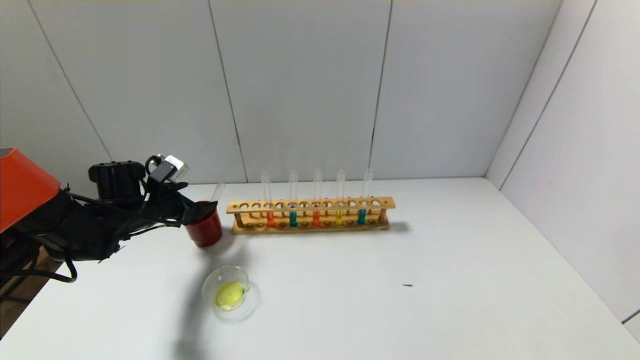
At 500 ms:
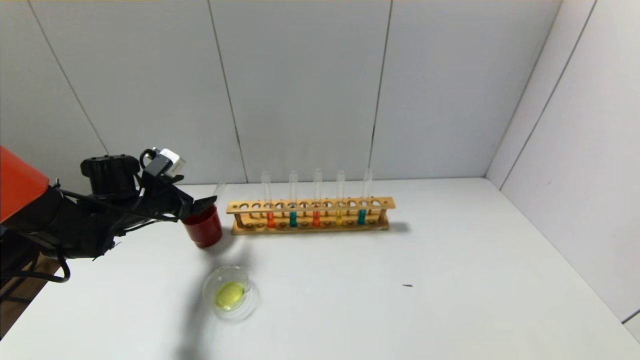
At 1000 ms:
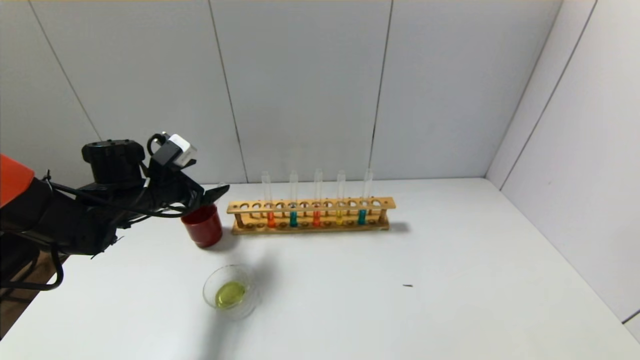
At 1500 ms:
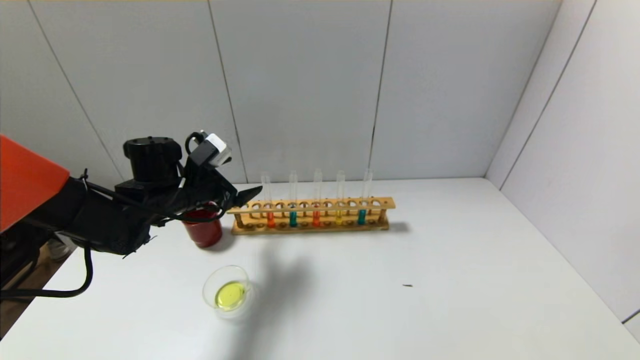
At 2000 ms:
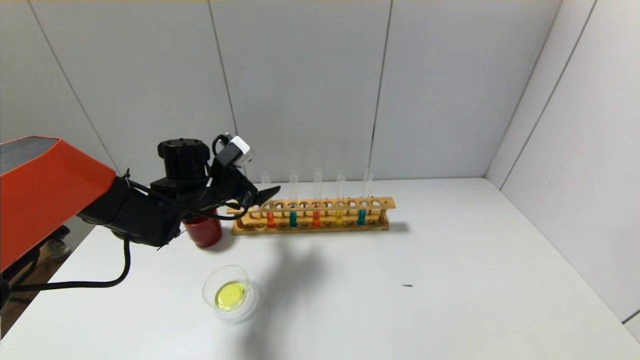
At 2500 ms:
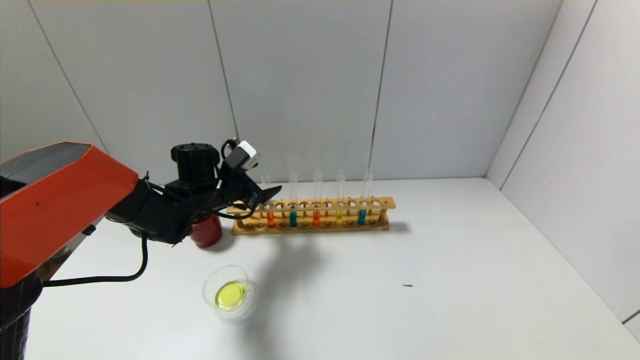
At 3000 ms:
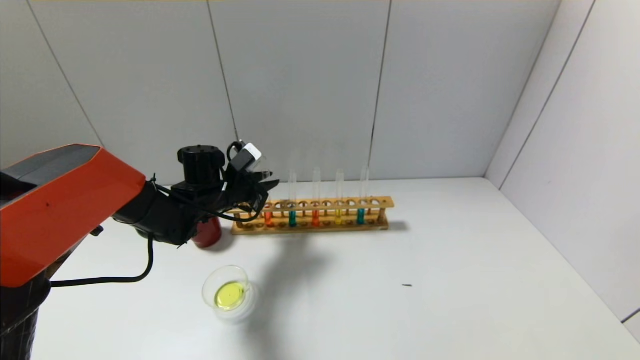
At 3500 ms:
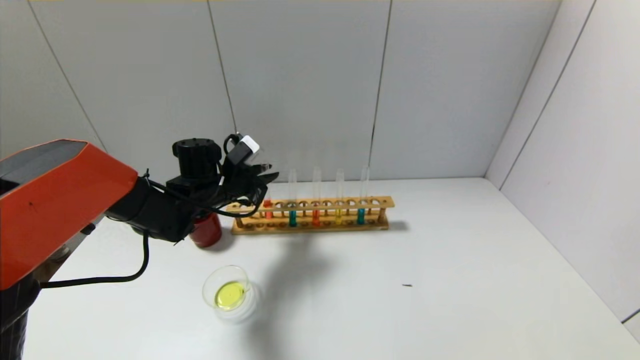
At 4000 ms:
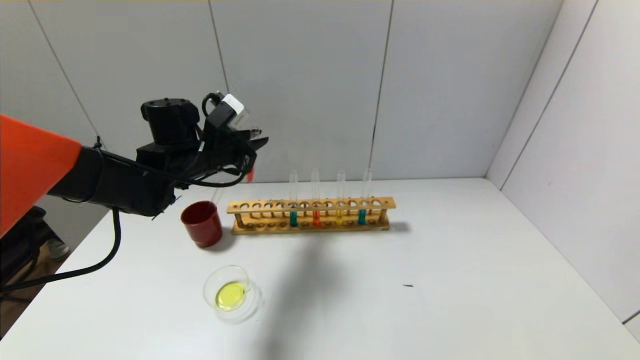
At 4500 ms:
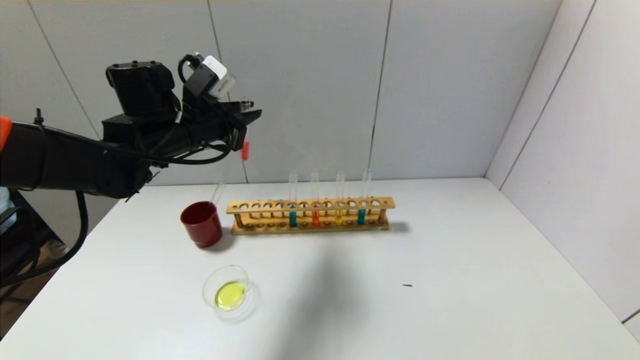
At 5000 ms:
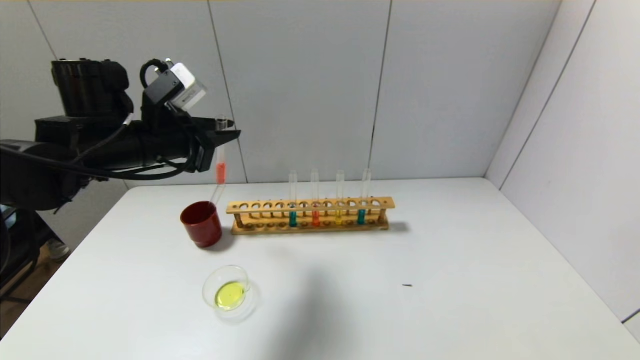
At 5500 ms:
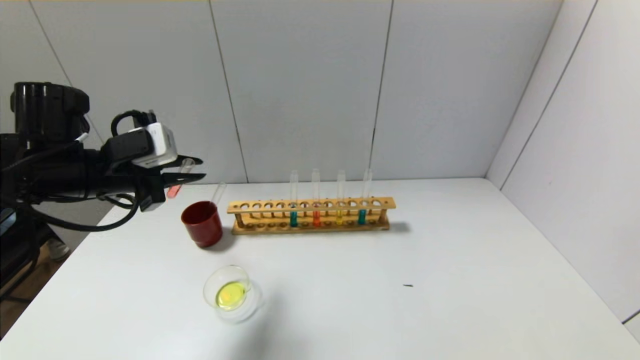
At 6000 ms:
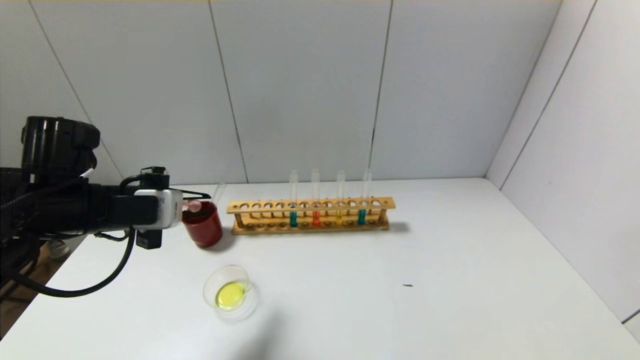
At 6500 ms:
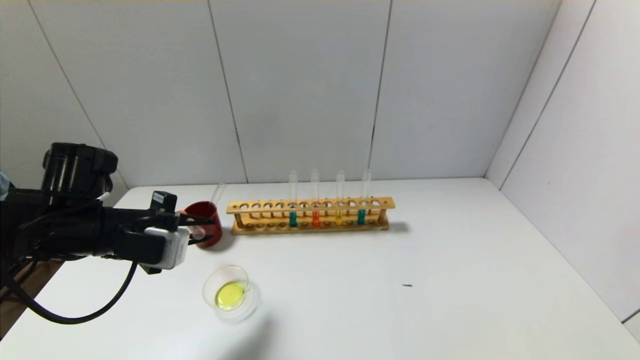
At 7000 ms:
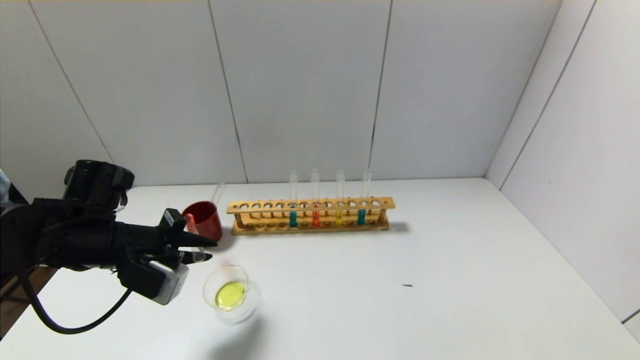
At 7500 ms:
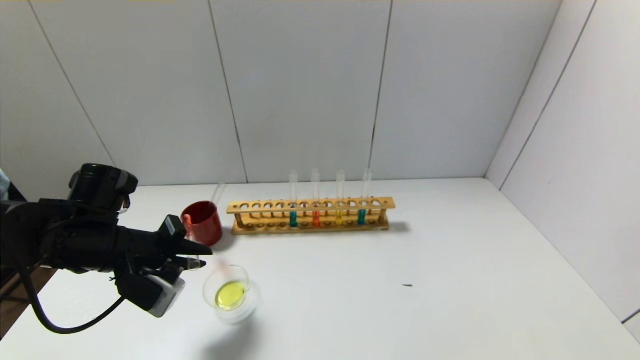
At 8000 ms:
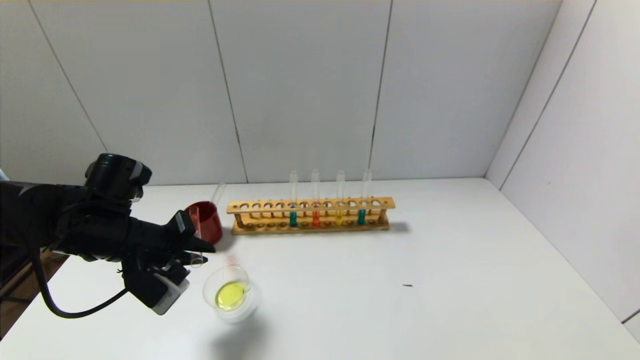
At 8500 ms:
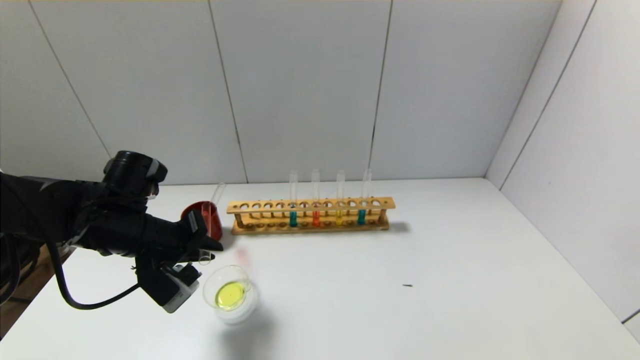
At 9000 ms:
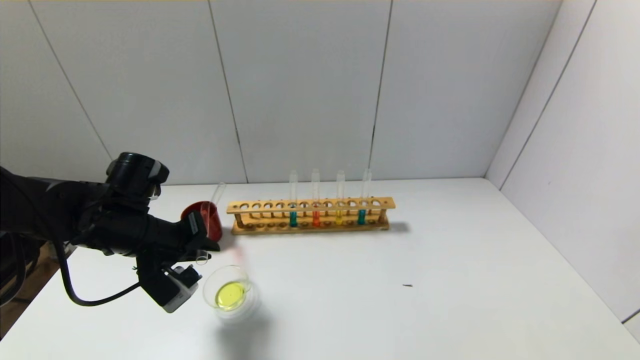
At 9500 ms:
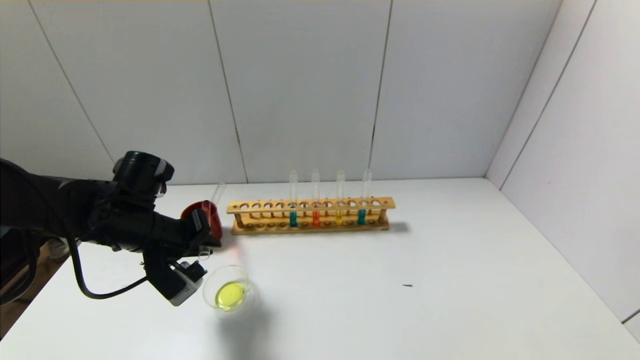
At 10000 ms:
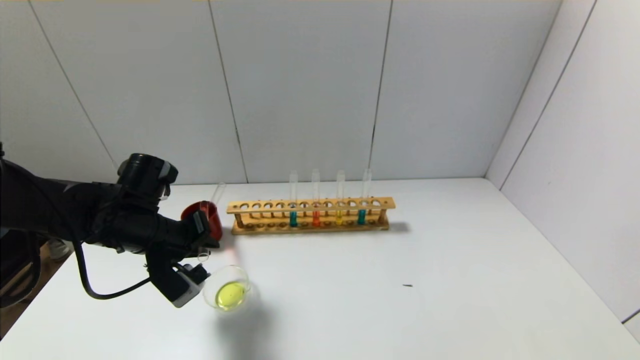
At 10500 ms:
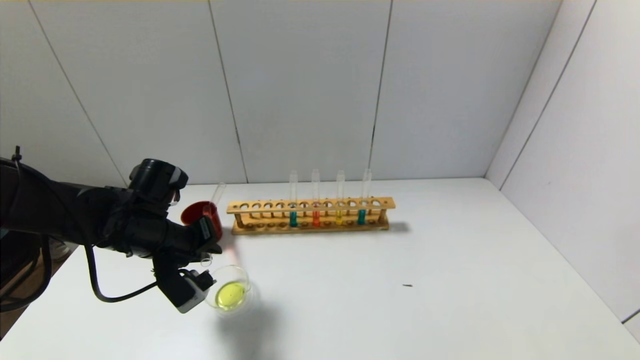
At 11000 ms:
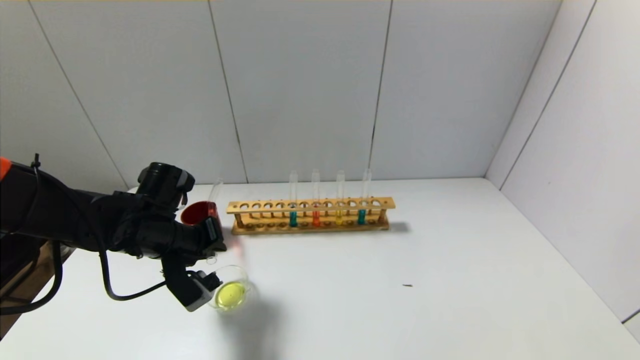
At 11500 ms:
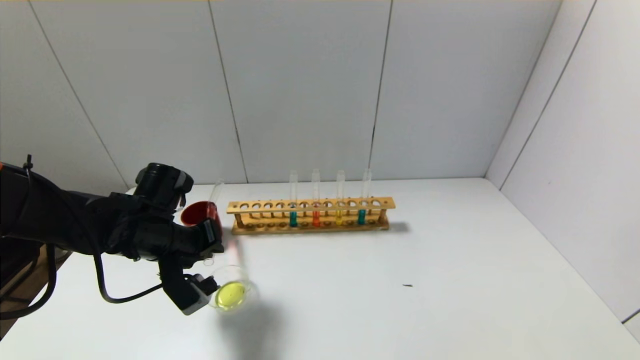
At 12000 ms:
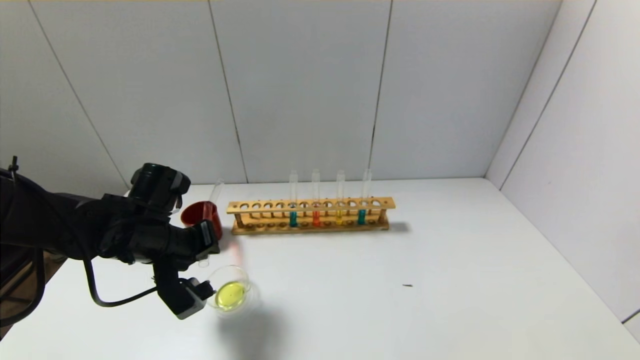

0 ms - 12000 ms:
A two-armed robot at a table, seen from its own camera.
Step, 0 ms - 3000 ms: Grasp the red reagent with the left gripper.
0 ms - 2000 ms: The left gripper goes about 10 cm to the right.
2000 ms - 4000 ms: The left gripper moves upward, roughly 5 cm, and closes its fingers.
4000 ms - 6000 ms: The left gripper moves backward and to the left, about 15 cm.
6000 ms - 8000 ms: The left gripper moves downward, roughly 5 cm.
8000 ms - 10000 ms: There are only small adjustments of the grippers.
10000 ms - 12000 ms: There are only small adjustments of the grippers.

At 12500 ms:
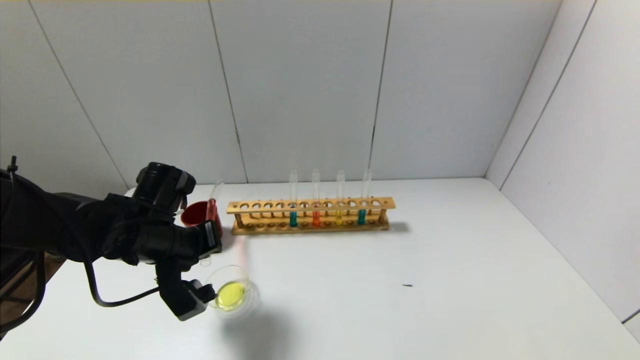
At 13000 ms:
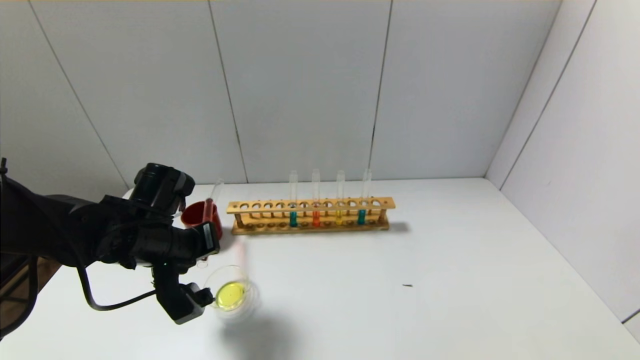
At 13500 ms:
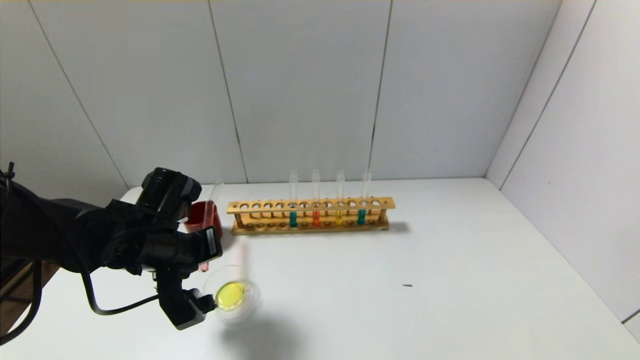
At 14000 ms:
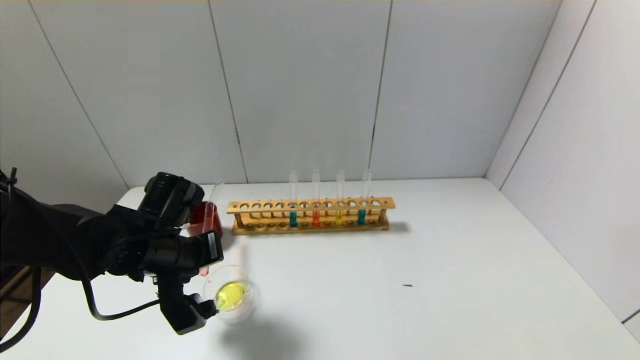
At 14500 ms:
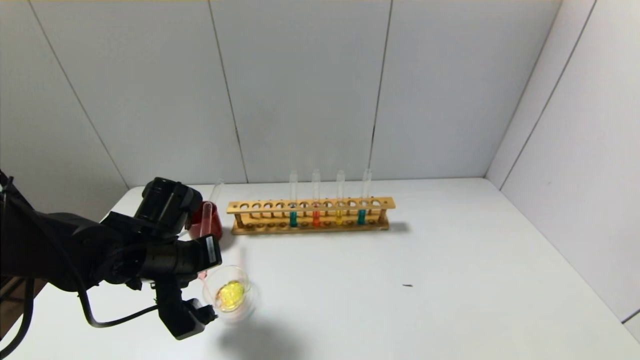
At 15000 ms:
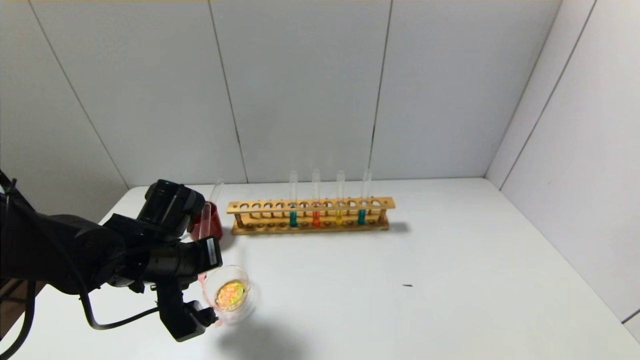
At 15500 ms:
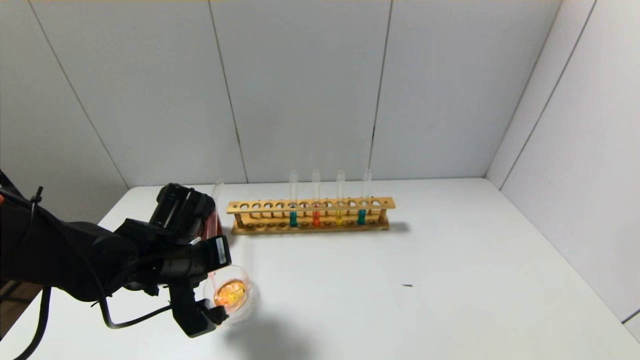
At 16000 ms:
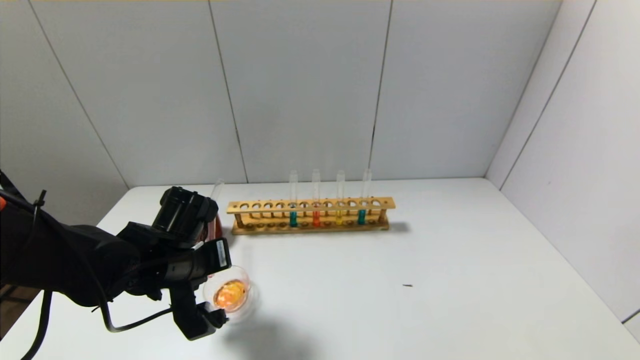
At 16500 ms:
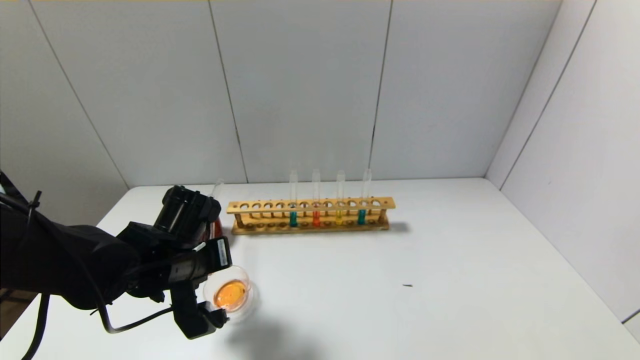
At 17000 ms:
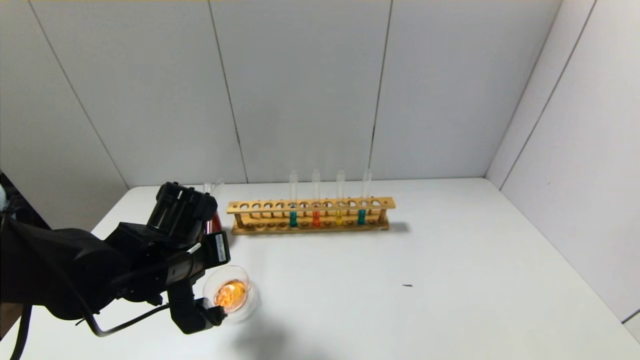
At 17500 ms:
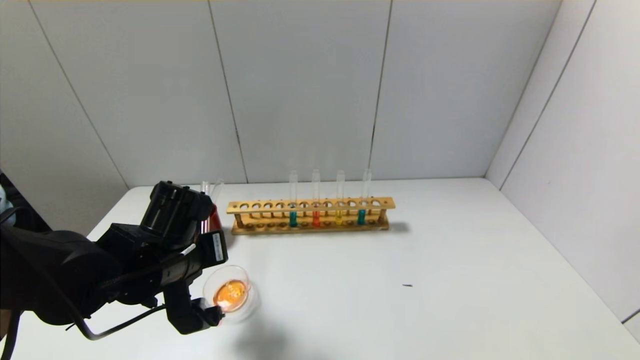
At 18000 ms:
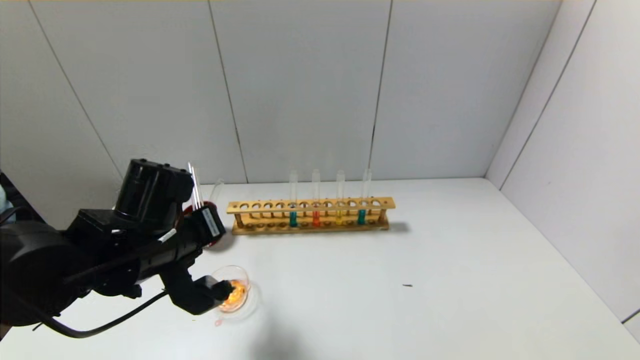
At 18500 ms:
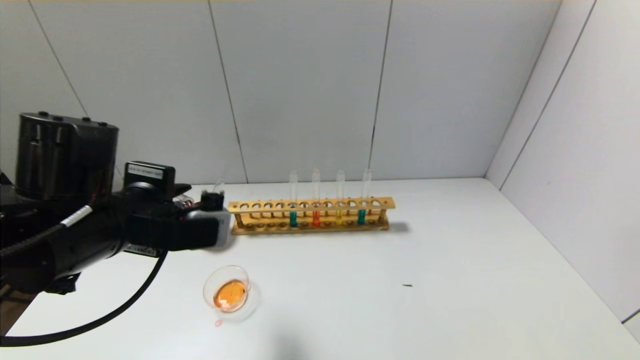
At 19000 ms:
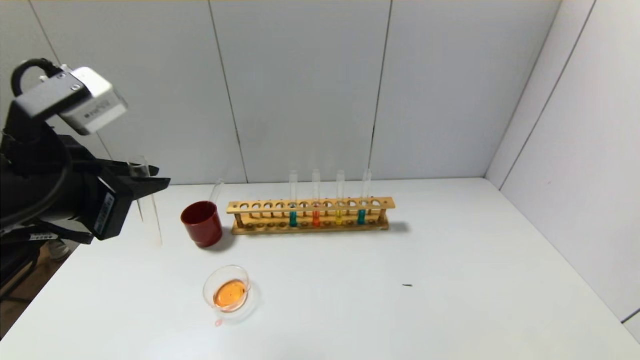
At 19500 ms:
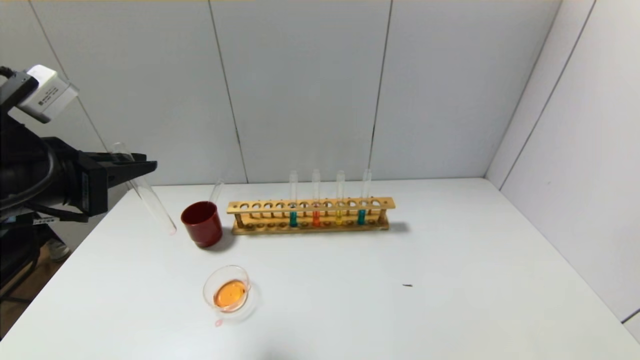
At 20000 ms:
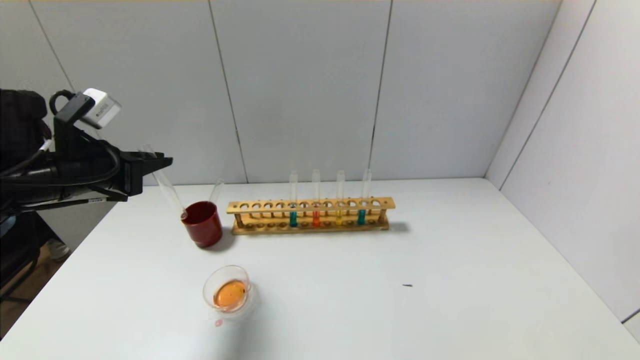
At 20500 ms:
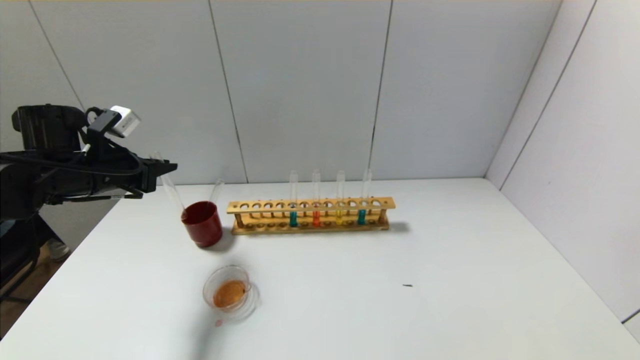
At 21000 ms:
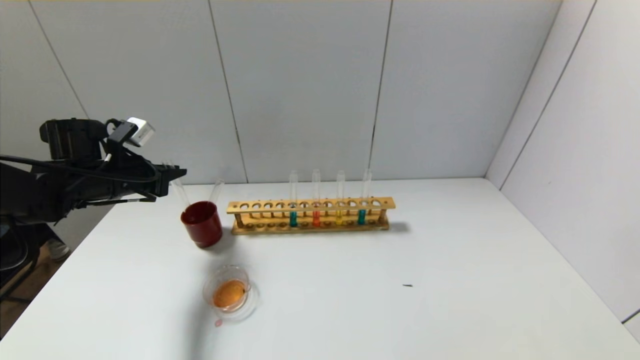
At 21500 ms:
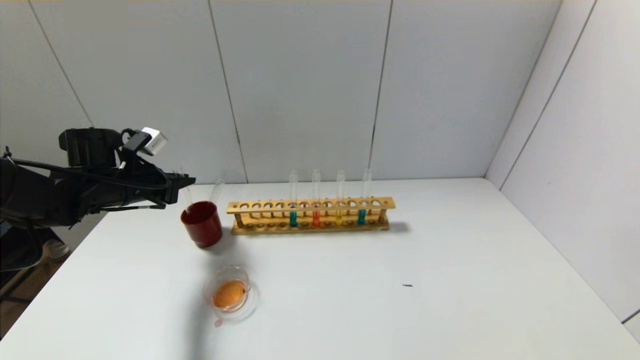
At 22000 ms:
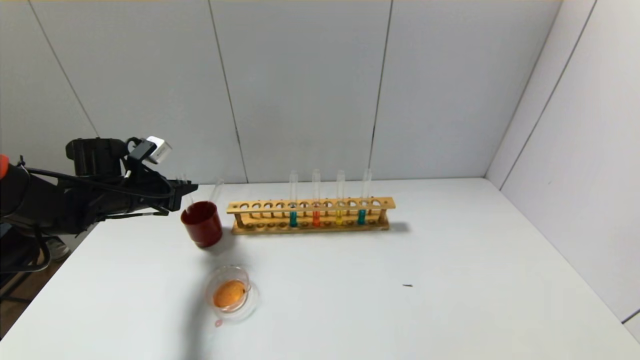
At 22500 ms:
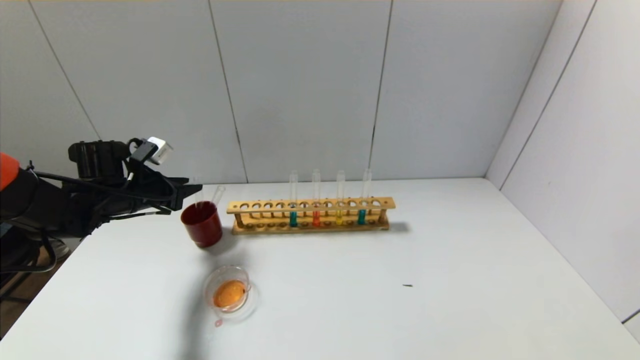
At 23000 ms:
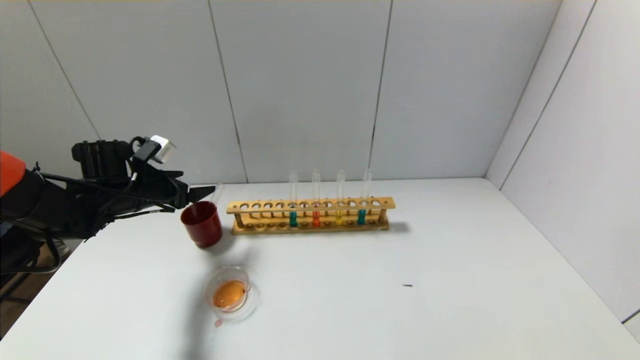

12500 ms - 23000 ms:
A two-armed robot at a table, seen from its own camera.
Step, 12500 ms - 18000 ms: Pour the red reagent into the graduated cylinder with the left gripper.
Step, 18500 ms - 22500 ms: Place the test tube into the brown cup with the left gripper.
12500 ms - 16500 ms: The grippers stay close to where they were, moving slightly.
16500 ms - 19000 ms: The left gripper goes roughly 20 cm upward and backward.
19000 ms - 21000 ms: The left gripper shifts about 25 cm forward, downward and to the left.
21000 ms - 23000 ms: The left gripper opens up.
